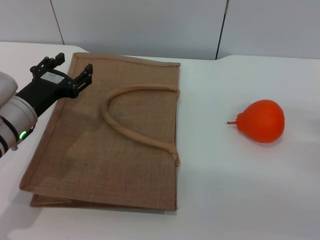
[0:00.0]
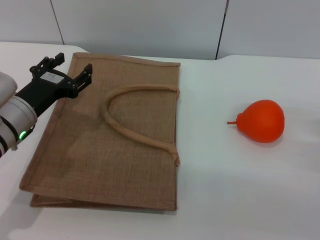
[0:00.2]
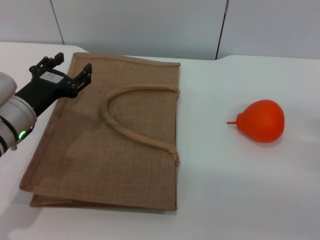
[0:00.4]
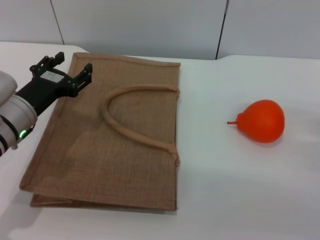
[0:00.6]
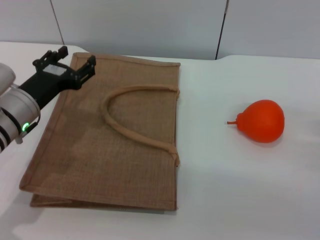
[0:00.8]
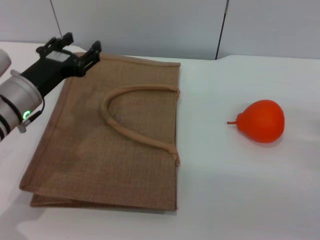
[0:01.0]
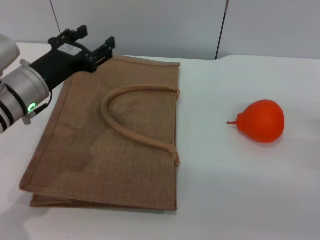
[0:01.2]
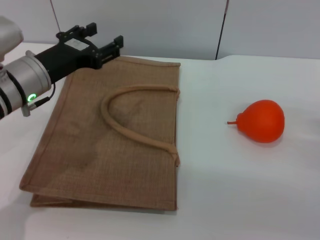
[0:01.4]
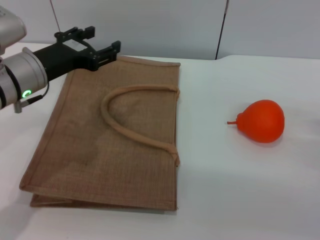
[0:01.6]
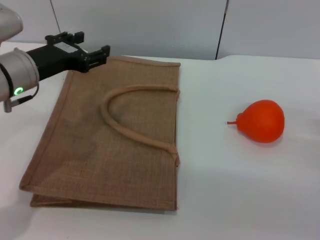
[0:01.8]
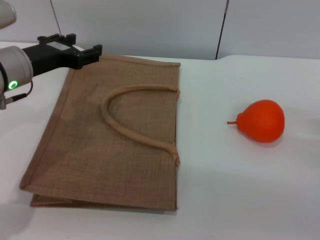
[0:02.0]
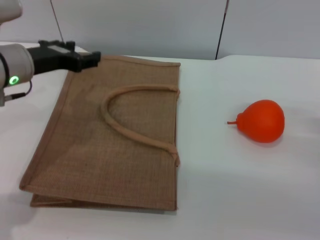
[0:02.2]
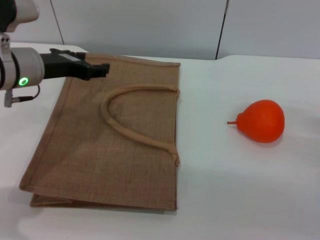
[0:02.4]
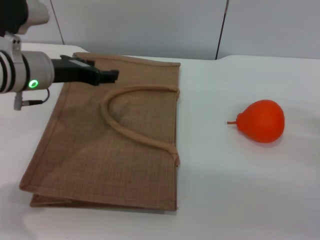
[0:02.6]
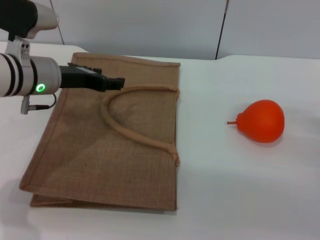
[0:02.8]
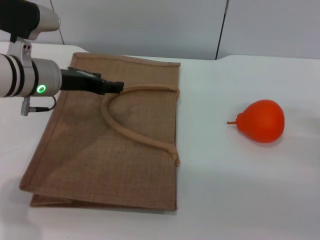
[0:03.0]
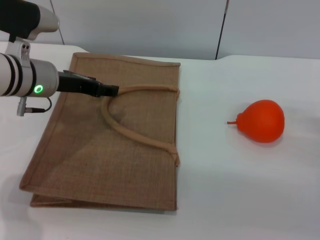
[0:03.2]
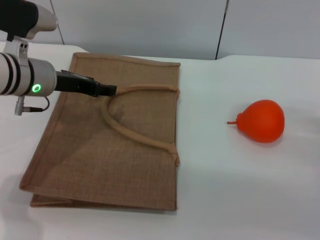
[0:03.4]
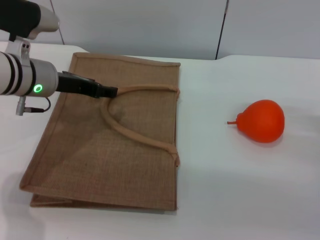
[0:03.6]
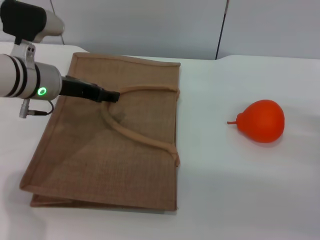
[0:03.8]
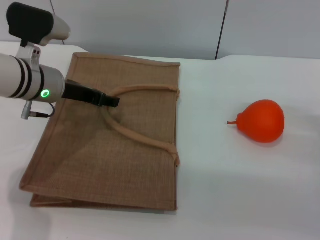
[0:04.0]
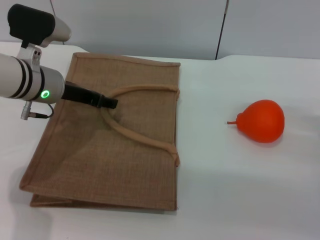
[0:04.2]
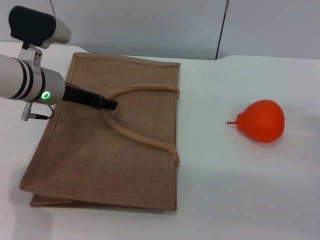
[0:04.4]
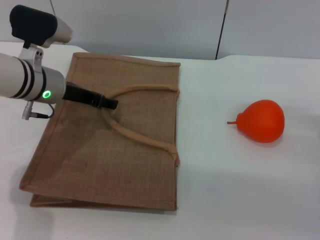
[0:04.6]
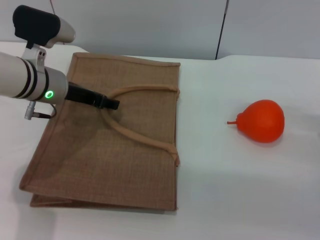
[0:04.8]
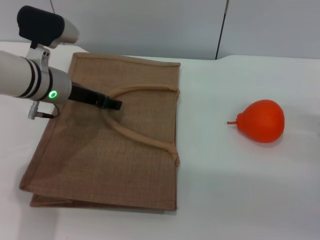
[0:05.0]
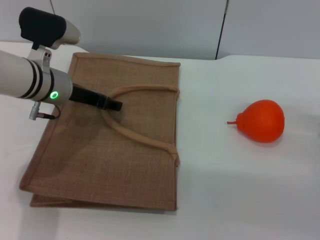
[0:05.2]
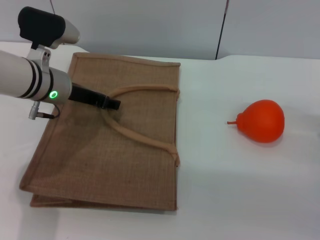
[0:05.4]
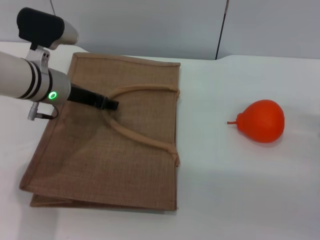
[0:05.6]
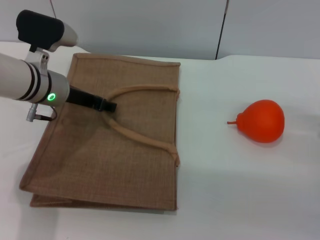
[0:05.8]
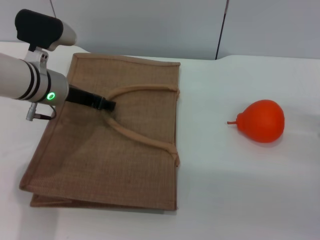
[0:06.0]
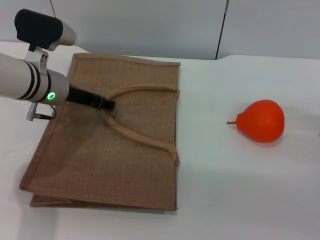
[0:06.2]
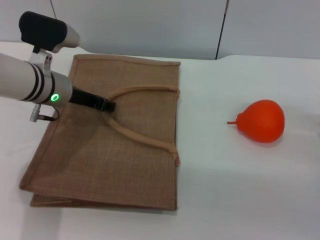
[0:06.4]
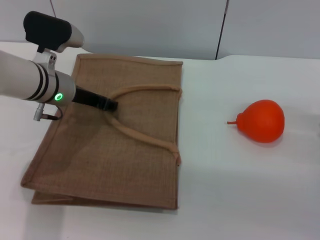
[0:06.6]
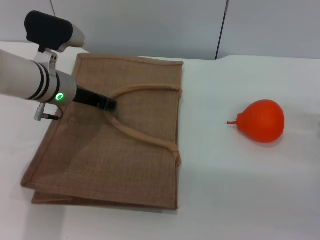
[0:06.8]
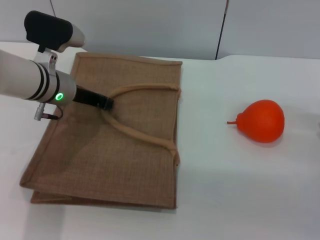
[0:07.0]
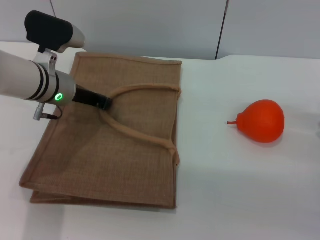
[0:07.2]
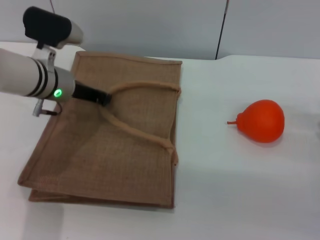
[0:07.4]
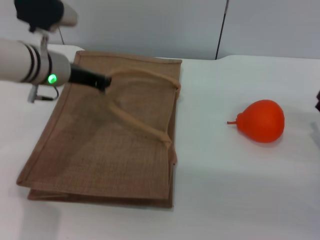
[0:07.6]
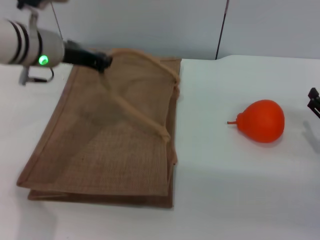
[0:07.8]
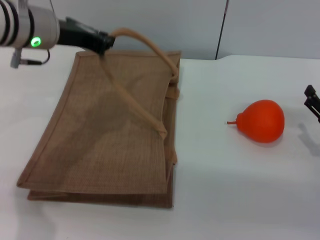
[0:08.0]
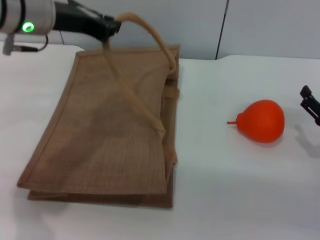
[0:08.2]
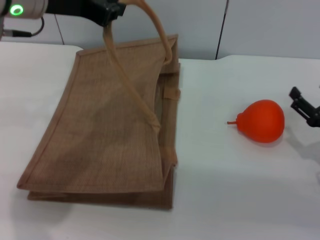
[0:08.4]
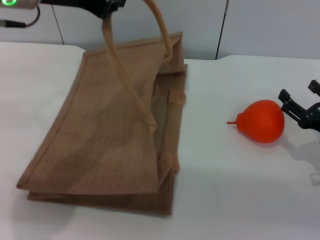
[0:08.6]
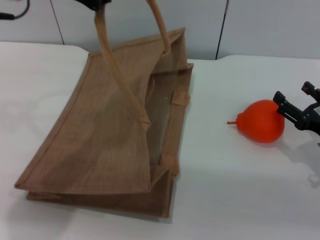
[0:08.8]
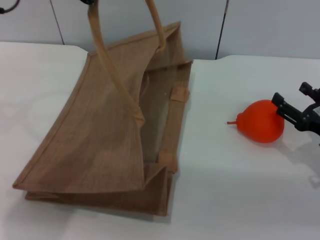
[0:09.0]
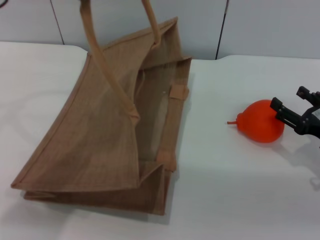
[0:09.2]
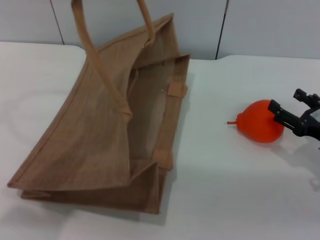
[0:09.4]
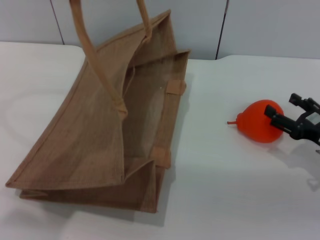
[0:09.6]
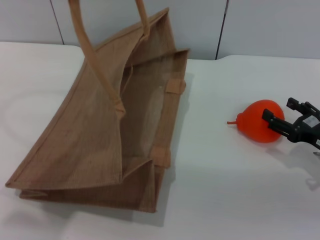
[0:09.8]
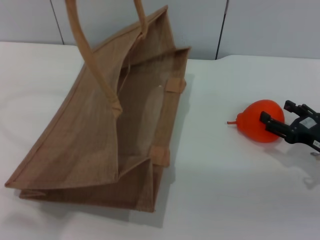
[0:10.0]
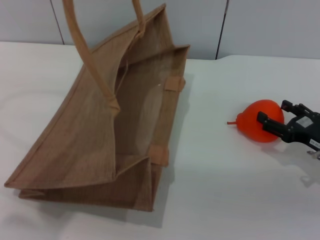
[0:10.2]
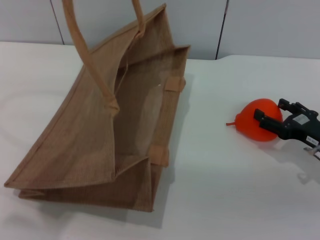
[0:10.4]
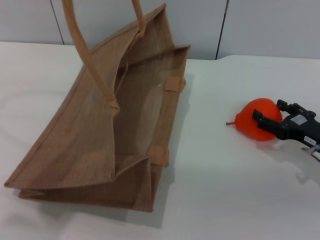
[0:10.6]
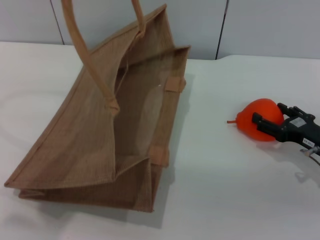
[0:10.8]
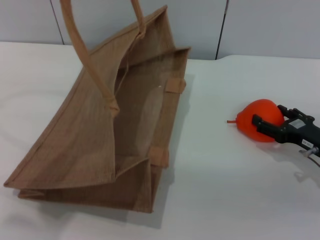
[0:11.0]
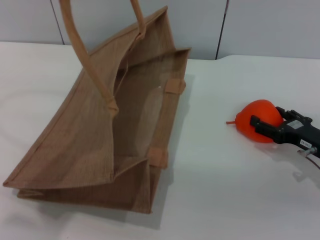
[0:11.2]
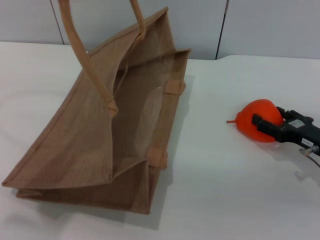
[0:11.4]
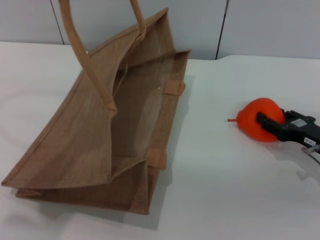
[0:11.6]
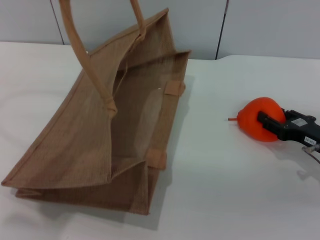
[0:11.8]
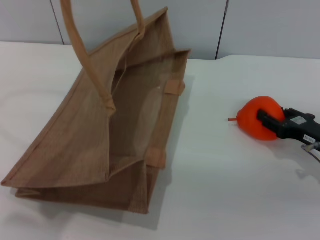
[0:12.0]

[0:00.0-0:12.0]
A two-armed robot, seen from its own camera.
Task of the whole recording: pick up the orange from the table and place it in the brown handbag.
Step, 0:00.0 to 0:07.4: Lift the woven bag with the left gripper to open it.
0:00.0 to 0:01.6: The left gripper heads upward, covering some 5 cm.
0:03.0 to 0:04.4: The grippers move only a little.
0:04.4 to 0:06.0: Neither gripper changes place.
0:06.0 to 0:07.6: The left gripper closes up.
0:07.6 to 0:09.0: The left gripper shifts some 20 cm upward and backward.
0:09.0 to 0:10.4: The grippers make only small movements.
0:10.4 to 0:12.0: The right gripper closes up.

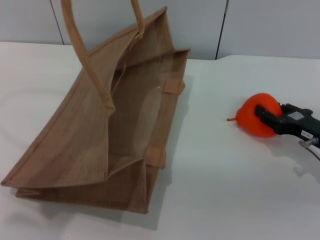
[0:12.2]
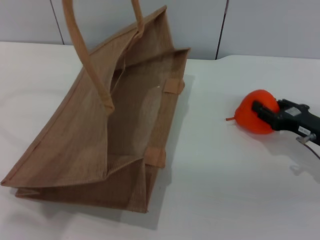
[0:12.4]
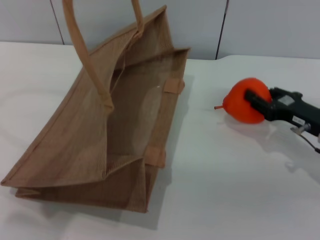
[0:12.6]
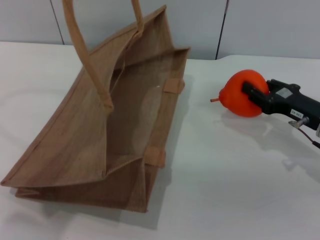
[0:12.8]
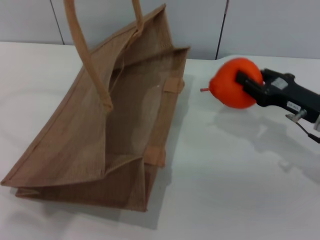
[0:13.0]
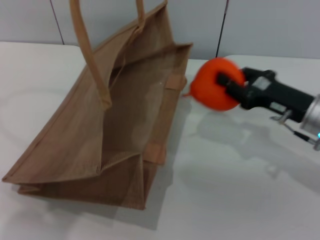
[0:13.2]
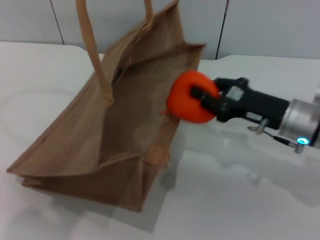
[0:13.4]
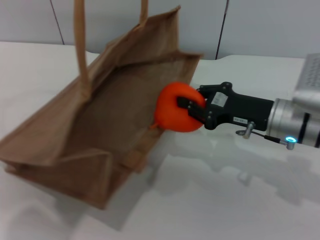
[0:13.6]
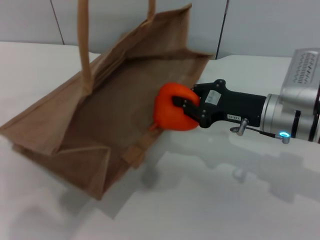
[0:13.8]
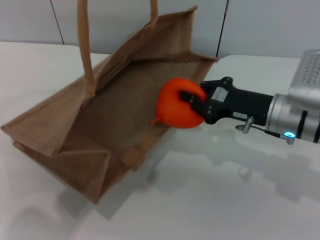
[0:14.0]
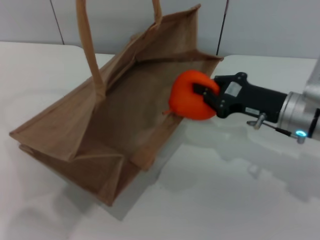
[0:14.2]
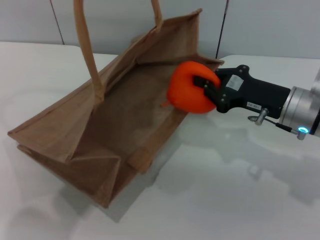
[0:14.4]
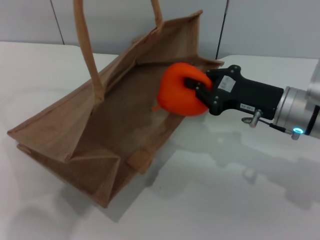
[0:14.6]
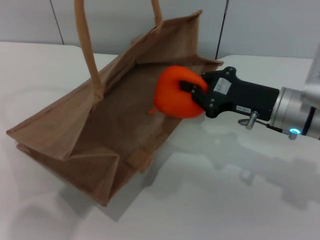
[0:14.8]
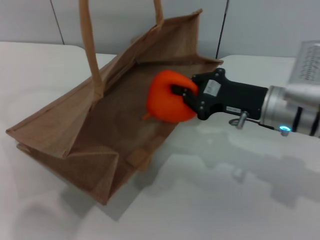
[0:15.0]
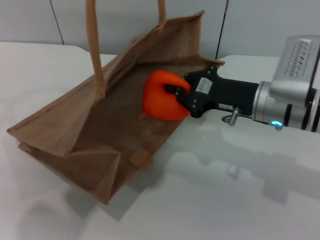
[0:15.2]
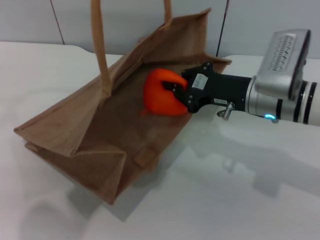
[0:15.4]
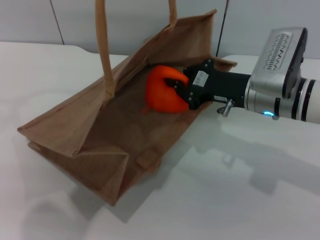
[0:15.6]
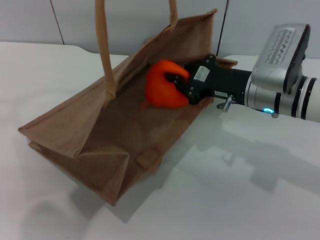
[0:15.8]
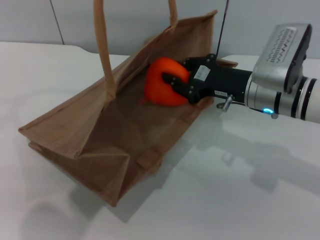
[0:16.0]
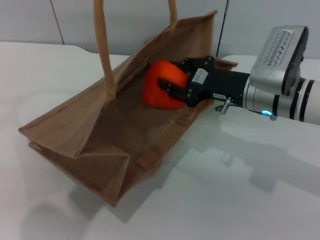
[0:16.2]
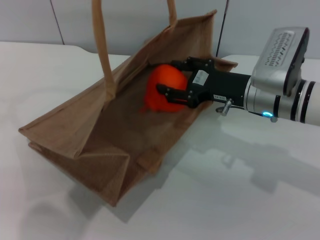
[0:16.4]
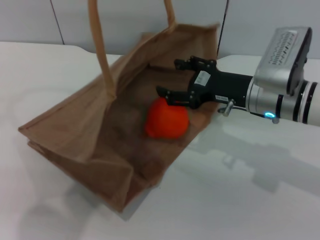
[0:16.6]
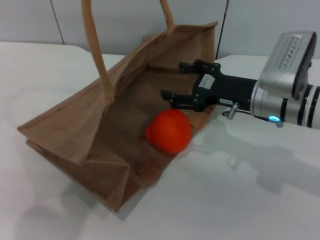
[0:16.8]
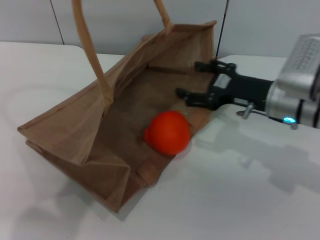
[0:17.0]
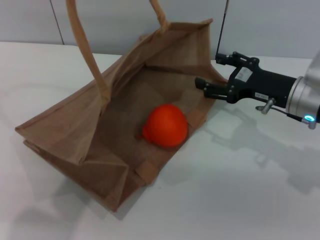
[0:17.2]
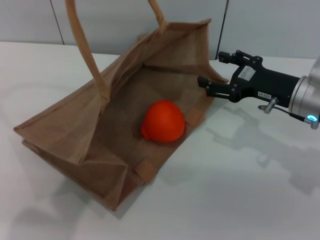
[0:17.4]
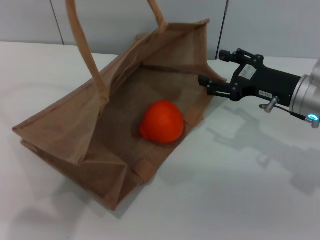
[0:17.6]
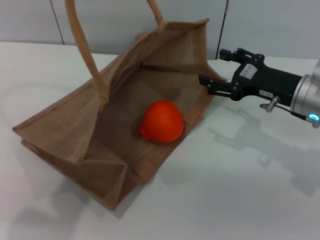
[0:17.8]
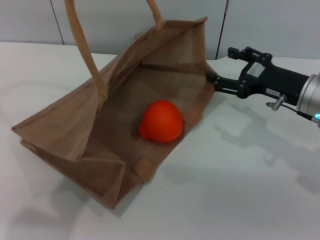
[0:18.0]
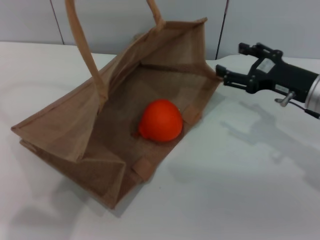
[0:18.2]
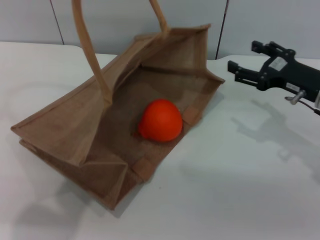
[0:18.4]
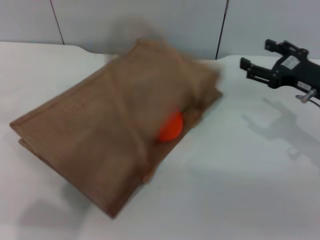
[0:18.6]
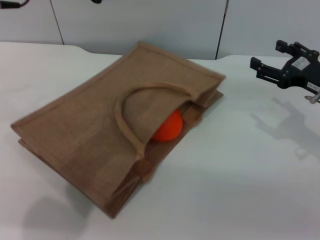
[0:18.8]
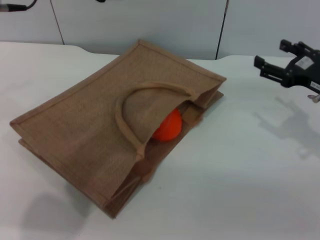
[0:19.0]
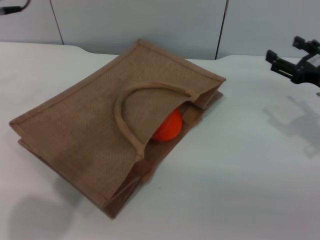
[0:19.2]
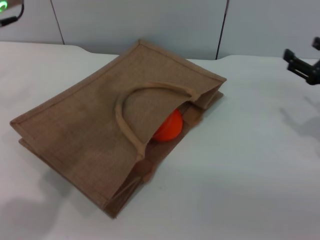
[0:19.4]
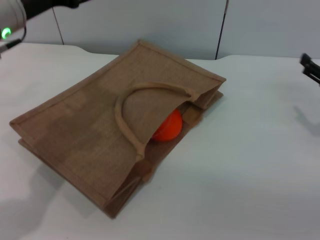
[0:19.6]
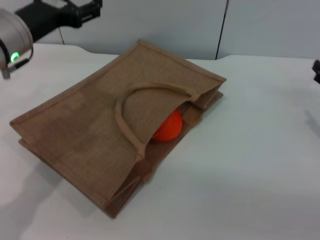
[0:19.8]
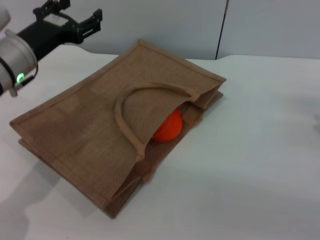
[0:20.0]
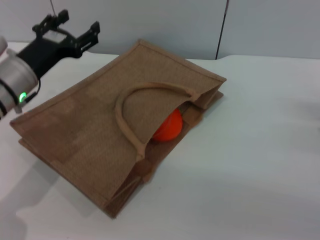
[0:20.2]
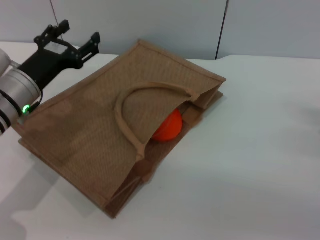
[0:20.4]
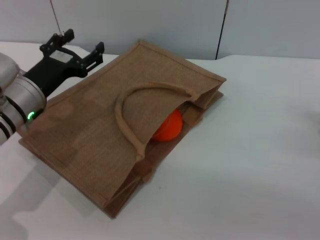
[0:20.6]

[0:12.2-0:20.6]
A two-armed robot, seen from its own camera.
Task of the whole recording: pick up the orange from the table and place it in the brown handbag.
Step, 0:13.0 to 0:17.0: Place the orange into the woven bag with the right gripper.
Step, 0:17.2 to 0:18.8: Lower the woven bag with the left gripper to close it.
0:12.2 to 0:13.6: The right gripper is displaced to the left and upward by roughly 10 cm.
0:15.0 to 0:16.4: The right gripper opens its fingers.
0:16.4 to 0:17.8: The right gripper moves to the right, some 5 cm.
0:17.8 to 0:19.2: The left gripper travels downward by about 5 cm, and opens its fingers. Meanwhile the right gripper heads to the right, covering approximately 10 cm.
0:19.2 to 0:20.6: The left gripper moves downward, about 20 cm. Meanwhile the right gripper is displaced downward and backward by about 10 cm.
